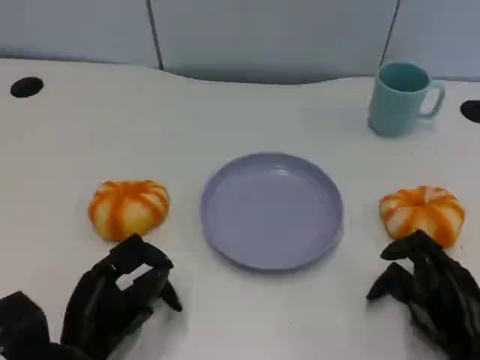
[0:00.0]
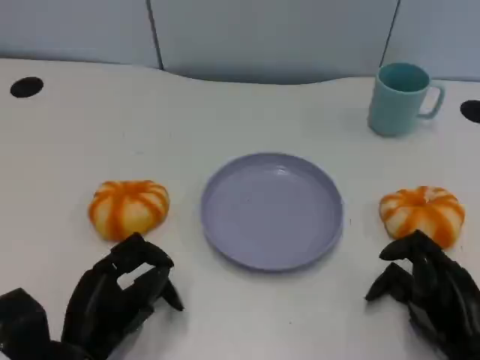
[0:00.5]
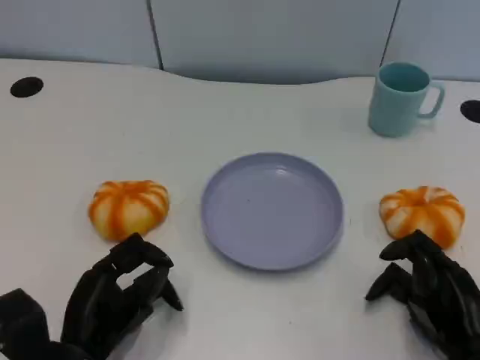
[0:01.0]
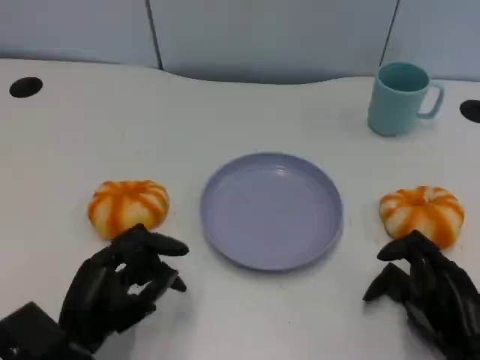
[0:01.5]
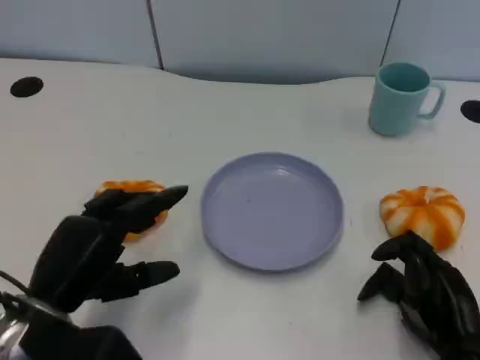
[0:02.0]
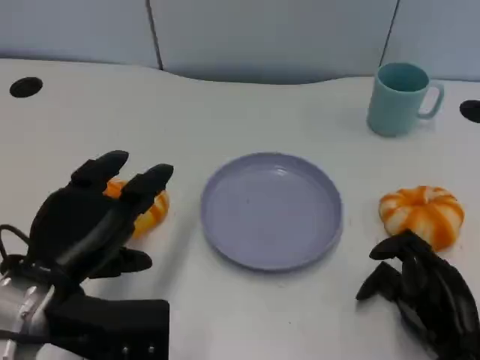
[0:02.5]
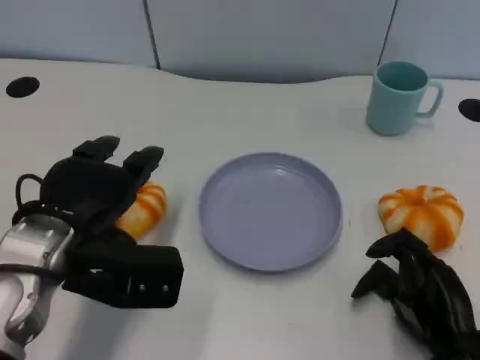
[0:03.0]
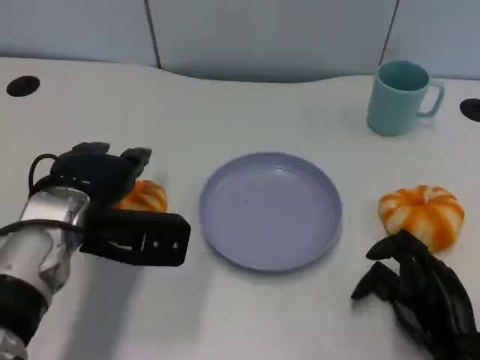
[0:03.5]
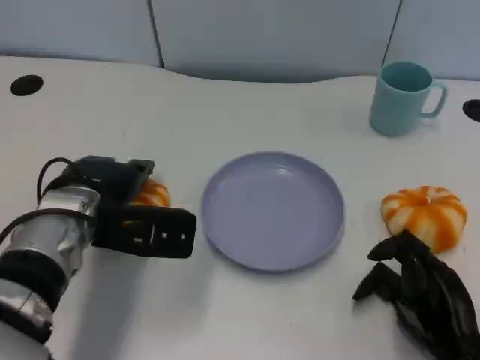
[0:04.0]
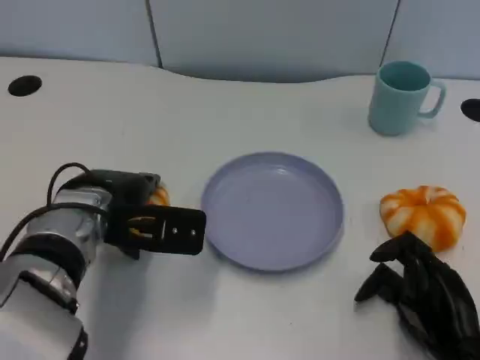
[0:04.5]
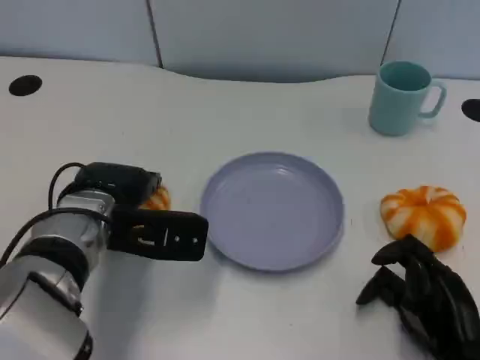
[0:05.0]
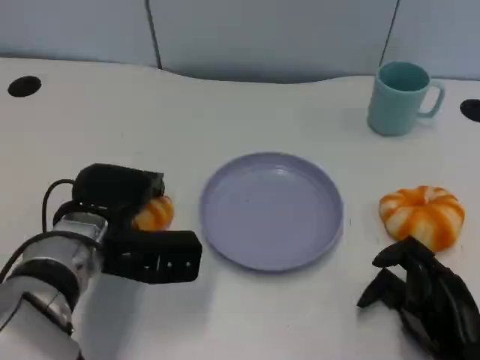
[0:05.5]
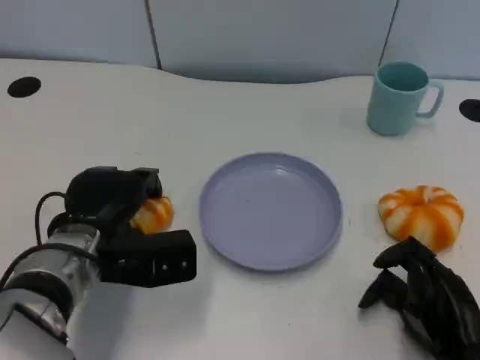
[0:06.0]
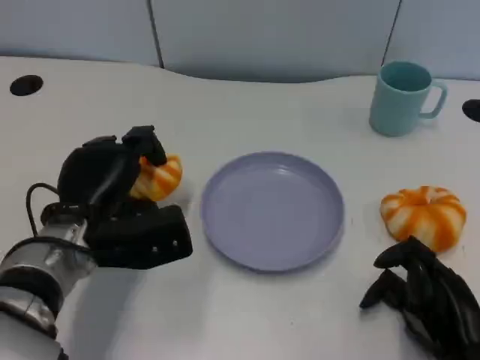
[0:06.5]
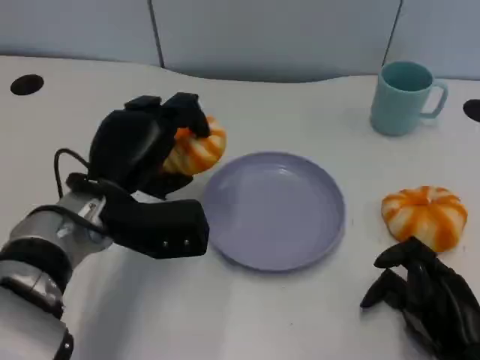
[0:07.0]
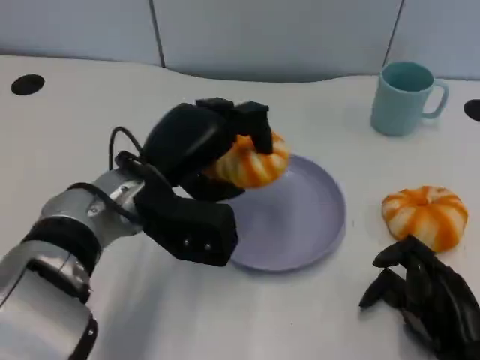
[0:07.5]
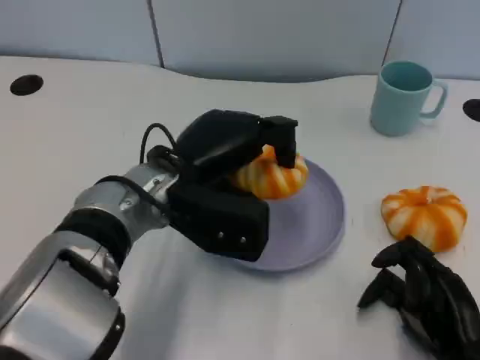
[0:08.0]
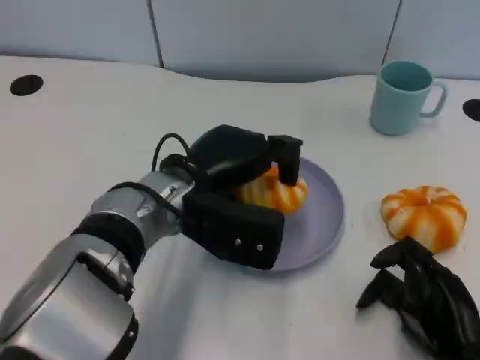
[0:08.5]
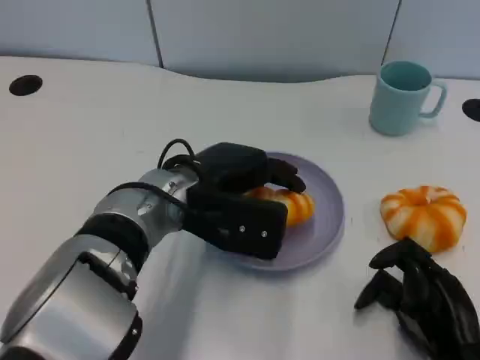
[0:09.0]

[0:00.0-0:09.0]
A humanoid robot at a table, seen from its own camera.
Task of the whole recording: Grasp the bread from the table and place it into the plate.
0:00.0 to 0:02.0: The left hand moves upward, some 10 cm.
0:02.0 to 0:04.5: The left hand moves forward and to the right, some 15 cm.
0:07.0 to 0:09.0: The left hand moves to the right, some 5 cm.

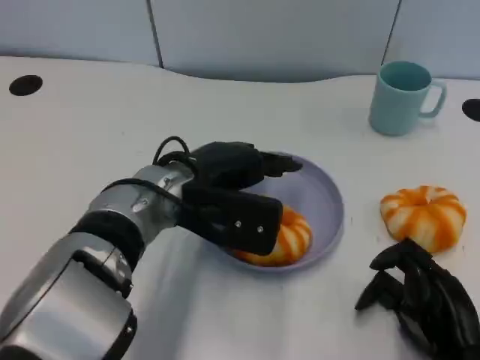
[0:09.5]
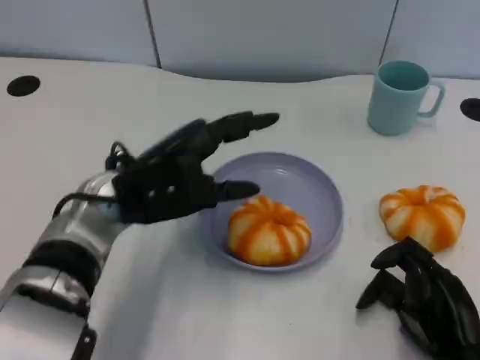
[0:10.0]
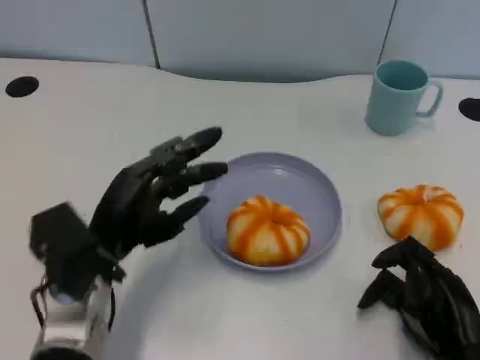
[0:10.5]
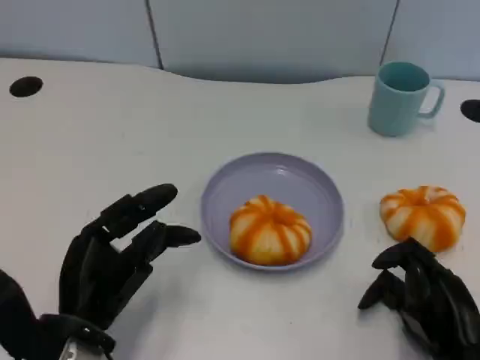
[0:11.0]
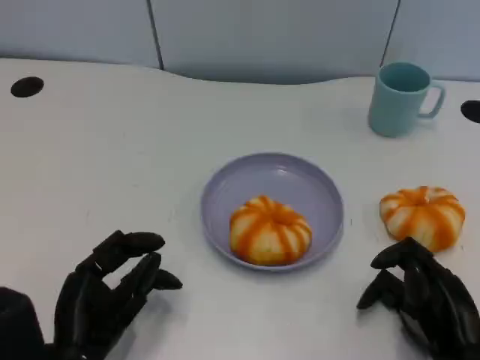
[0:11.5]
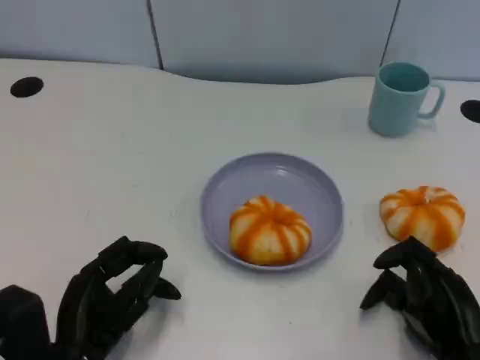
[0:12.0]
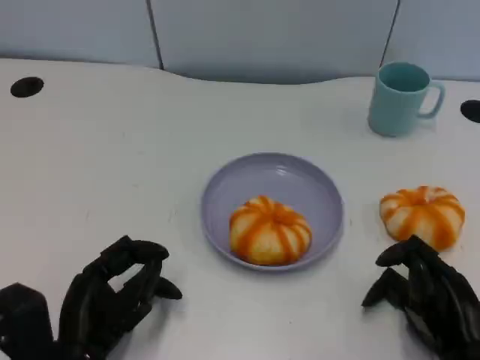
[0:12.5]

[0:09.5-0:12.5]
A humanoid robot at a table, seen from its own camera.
Task of the whole recording: Grasp the bread from the table and place it into the plate.
0:09.5 to 0:11.0: The left hand travels backward, to the left and downward by roughly 20 cm.
0:11.0 to 0:12.5: The hands move only a little.

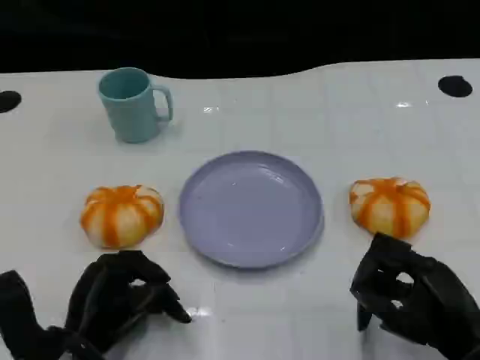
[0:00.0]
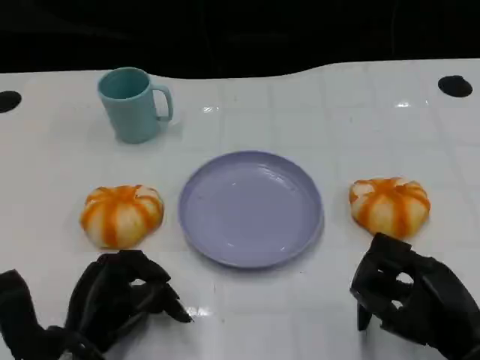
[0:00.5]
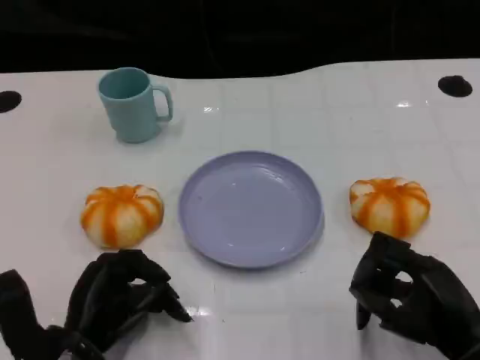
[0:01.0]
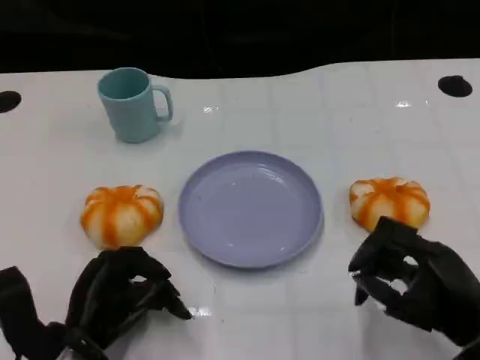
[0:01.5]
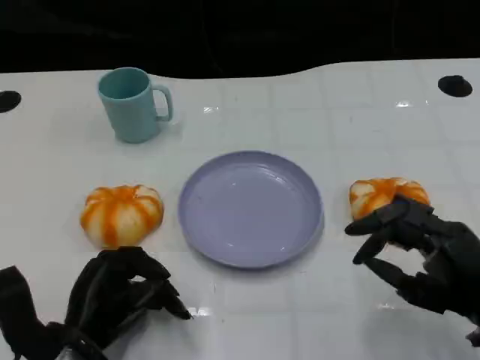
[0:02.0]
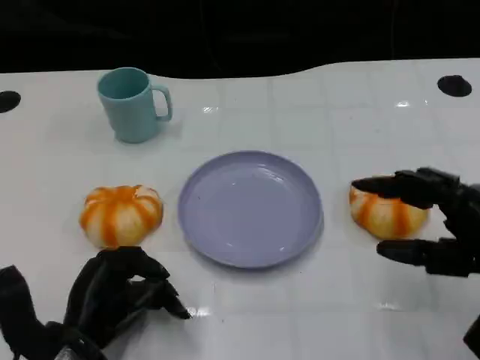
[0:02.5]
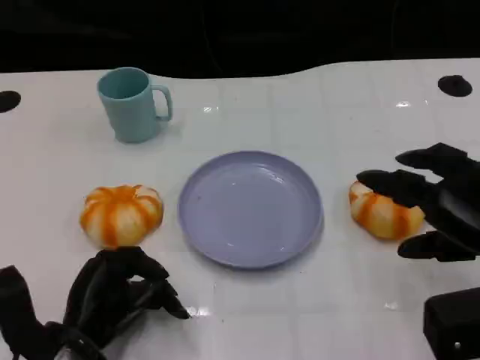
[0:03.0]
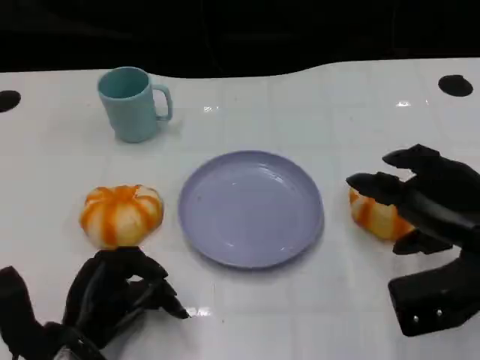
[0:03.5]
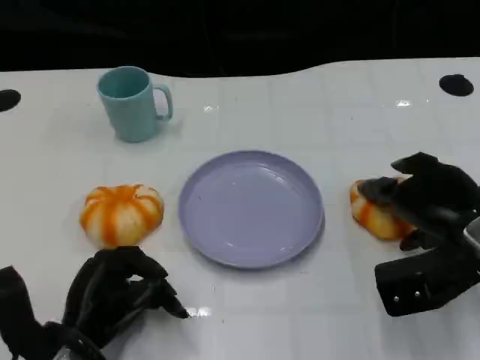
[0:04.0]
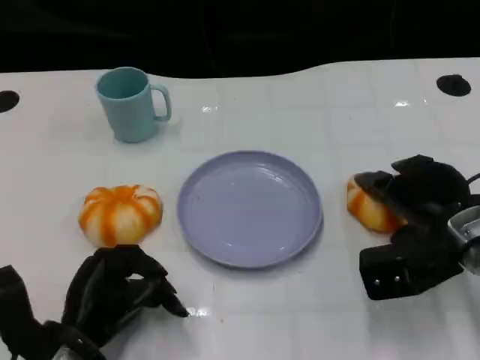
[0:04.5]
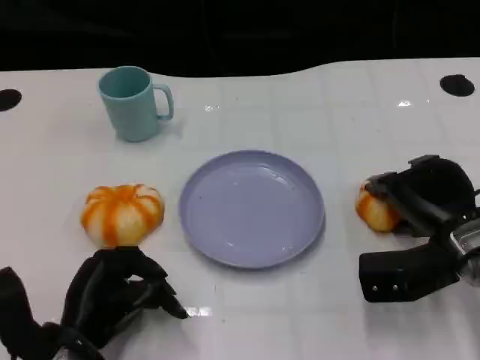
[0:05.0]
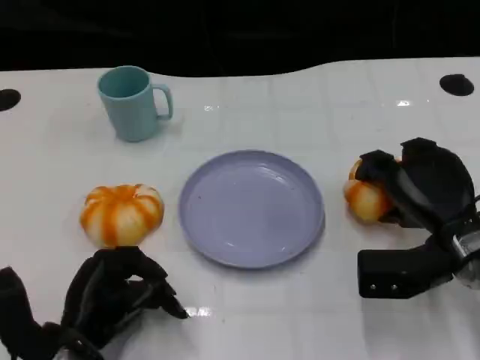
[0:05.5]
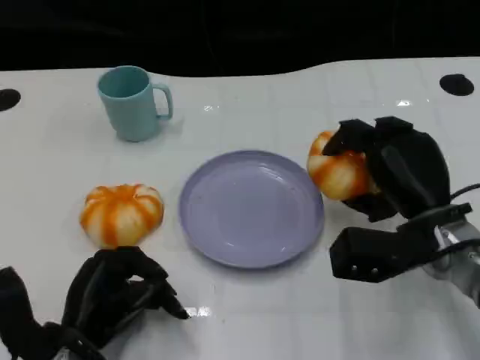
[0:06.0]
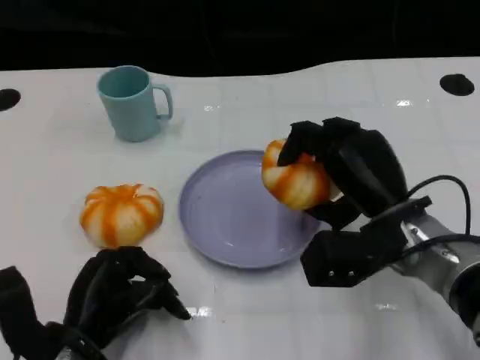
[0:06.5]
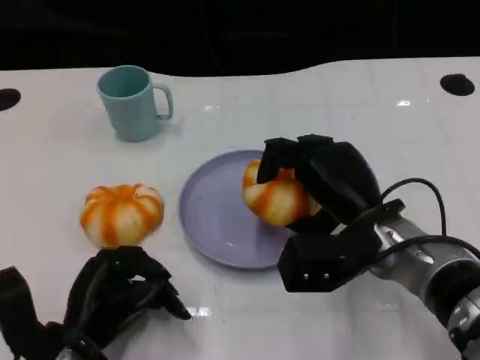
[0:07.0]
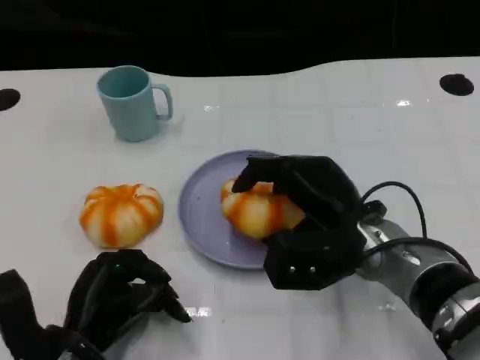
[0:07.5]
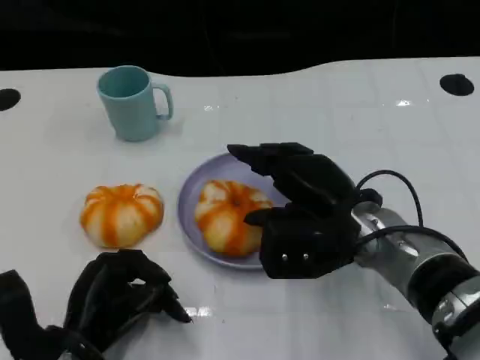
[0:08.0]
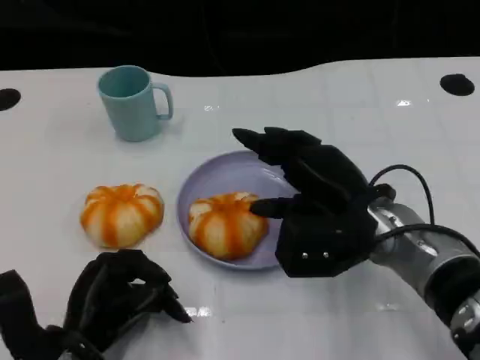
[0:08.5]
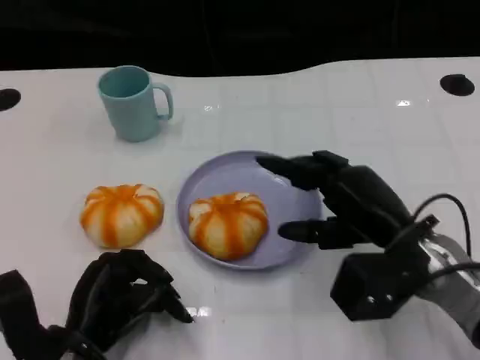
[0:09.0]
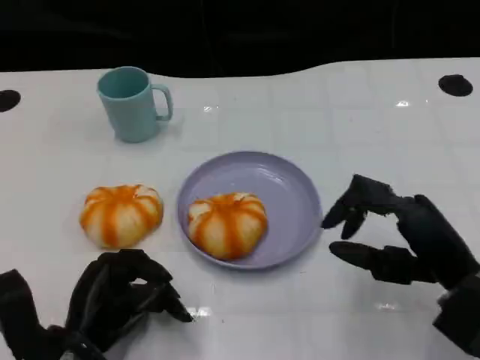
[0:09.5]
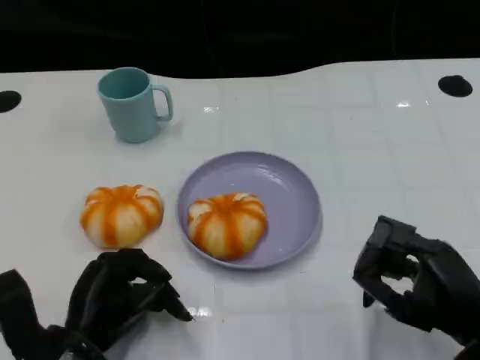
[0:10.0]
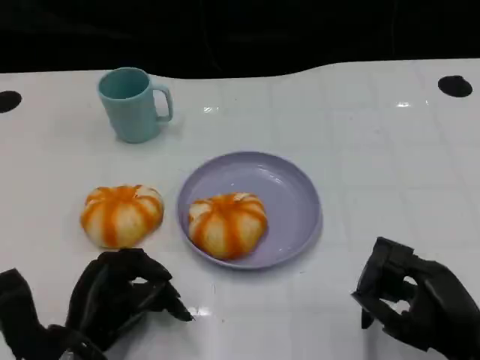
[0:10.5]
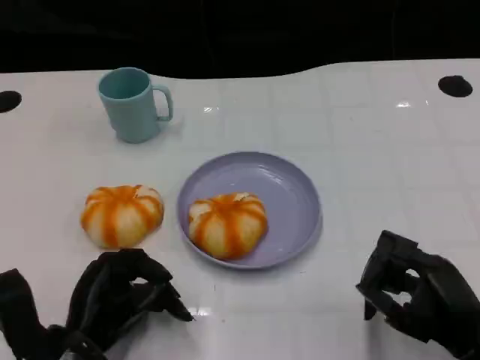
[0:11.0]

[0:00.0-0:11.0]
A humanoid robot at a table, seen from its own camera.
Task of the whole recording: Grasp the bread from the table and place it into the plate.
0:02.0 to 0:03.5: The right hand travels forward by some 5 cm.
0:03.5 to 0:05.5: The right hand shifts by approximately 5 cm.
0:05.5 to 0:07.5: The right hand is displaced to the left by some 10 cm.
0:07.5 to 0:09.0: The right hand heads to the right, covering roughly 5 cm.
0:09.0 to 0:11.0: The right hand goes approximately 10 cm backward and to the right.

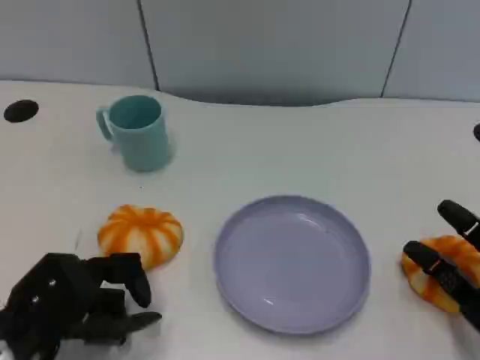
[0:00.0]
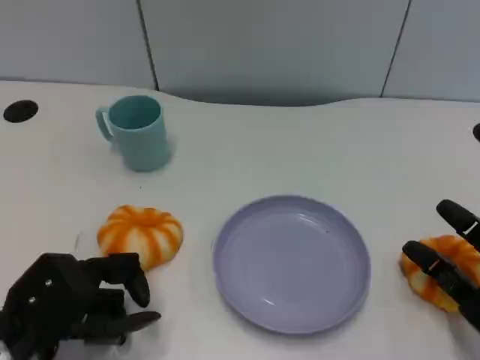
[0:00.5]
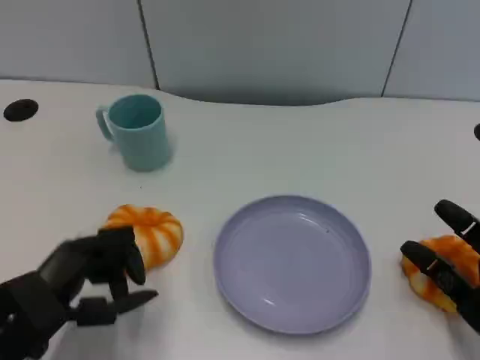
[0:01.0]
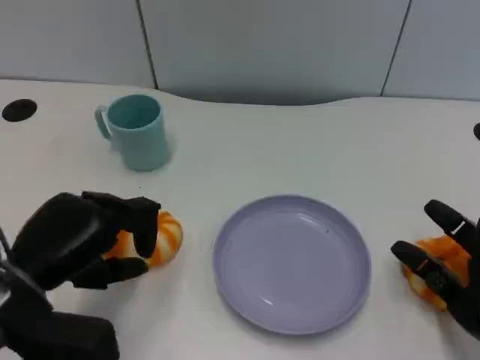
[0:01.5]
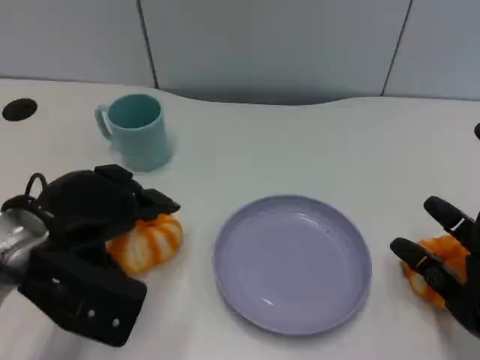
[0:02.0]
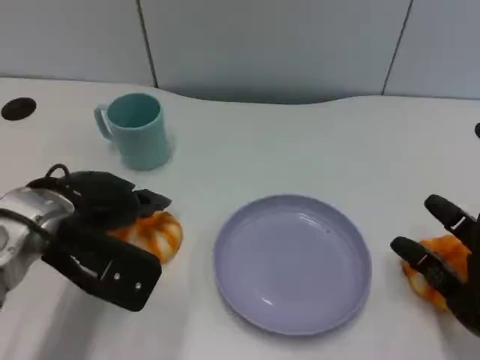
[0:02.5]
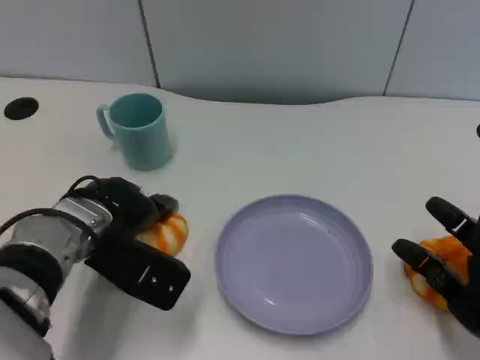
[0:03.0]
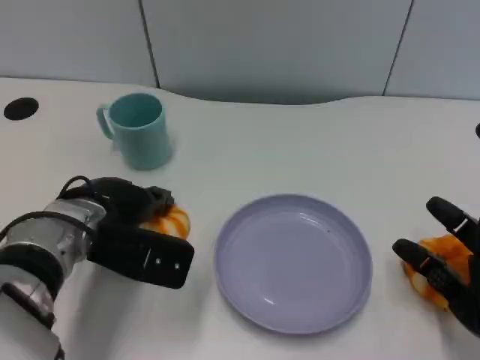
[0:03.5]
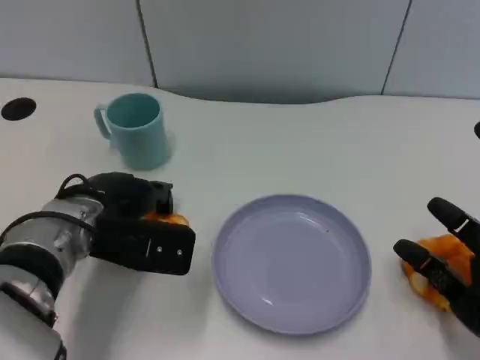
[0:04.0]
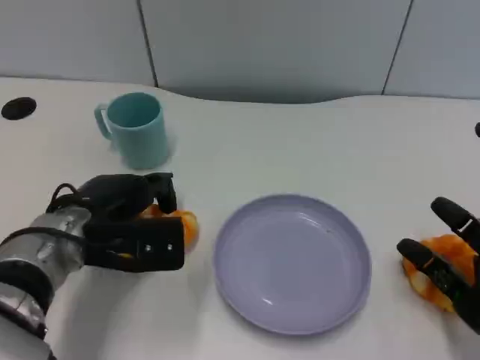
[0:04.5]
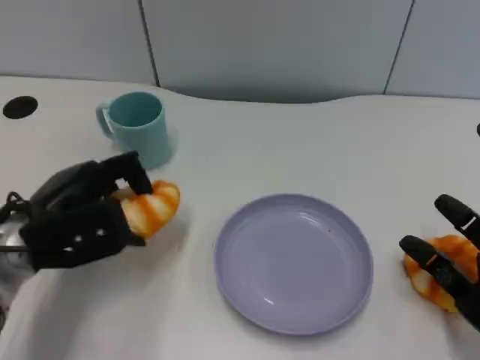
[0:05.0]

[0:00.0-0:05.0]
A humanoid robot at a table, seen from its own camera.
Task of the whole recording: Grasp the bread from the table and place it into the plate.
0:00.0 to 0:02.5: The left hand moves forward and upward, roughly 10 cm.
